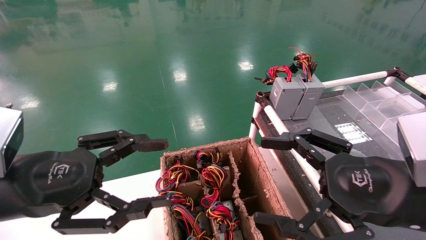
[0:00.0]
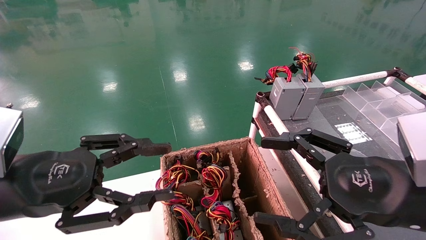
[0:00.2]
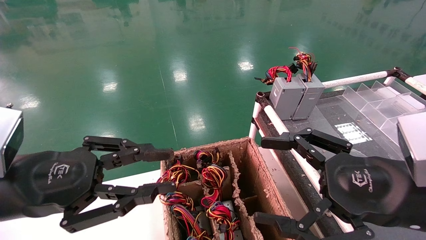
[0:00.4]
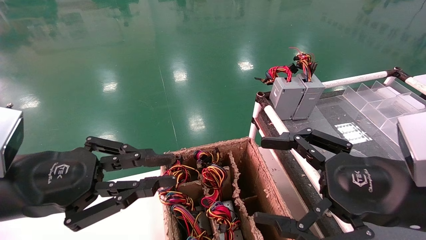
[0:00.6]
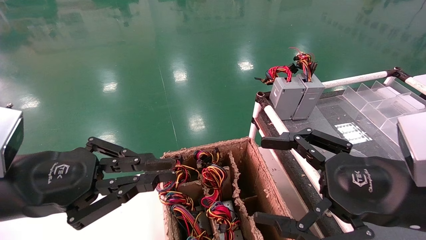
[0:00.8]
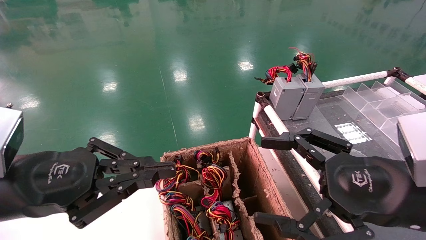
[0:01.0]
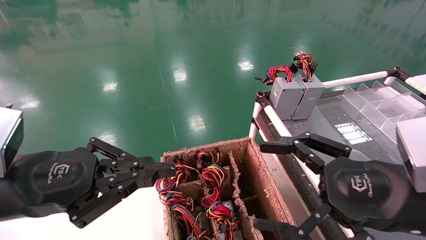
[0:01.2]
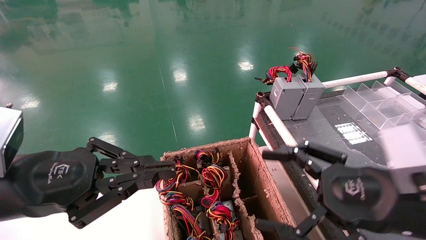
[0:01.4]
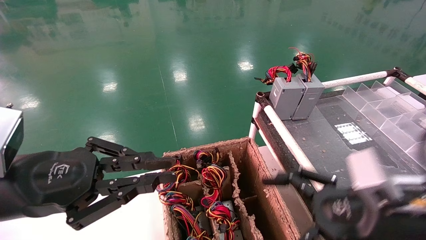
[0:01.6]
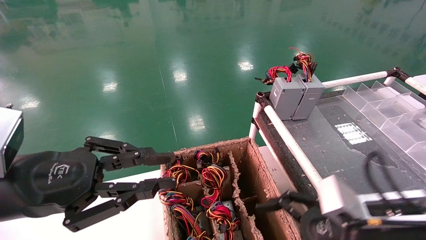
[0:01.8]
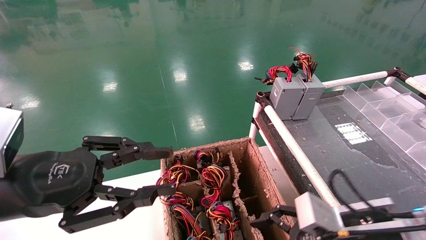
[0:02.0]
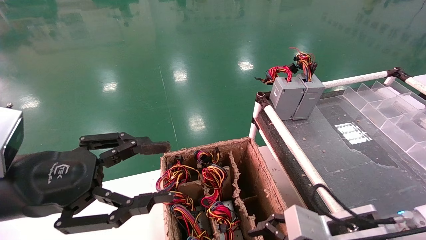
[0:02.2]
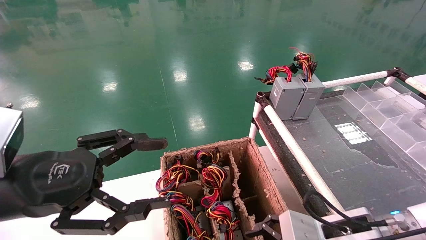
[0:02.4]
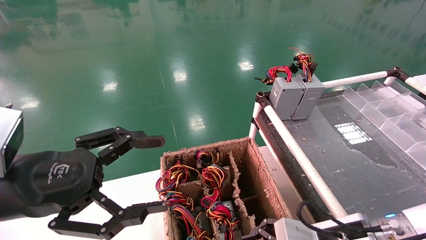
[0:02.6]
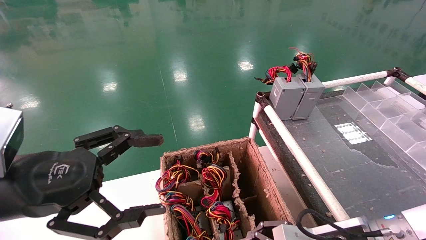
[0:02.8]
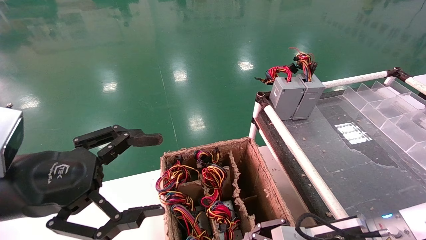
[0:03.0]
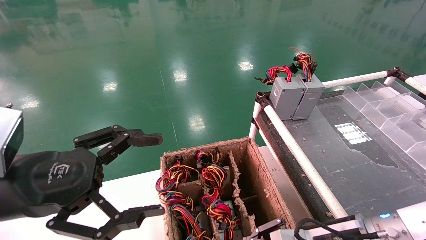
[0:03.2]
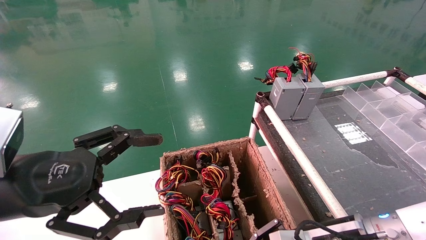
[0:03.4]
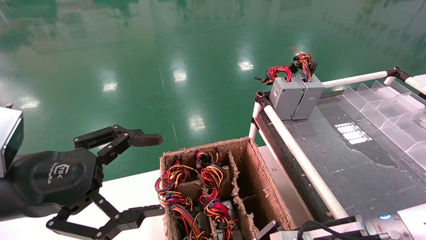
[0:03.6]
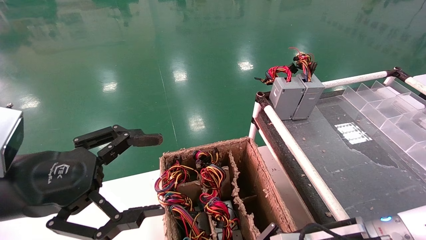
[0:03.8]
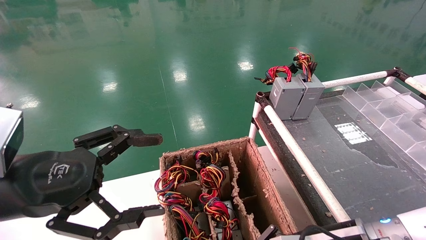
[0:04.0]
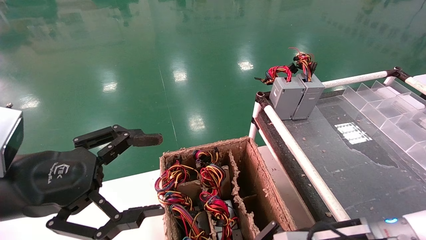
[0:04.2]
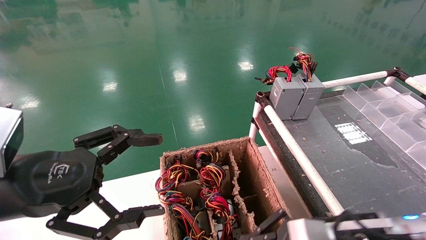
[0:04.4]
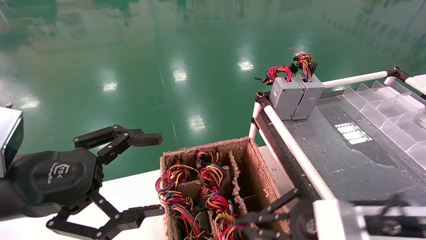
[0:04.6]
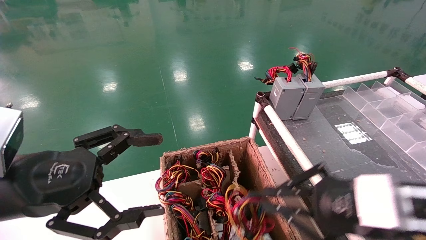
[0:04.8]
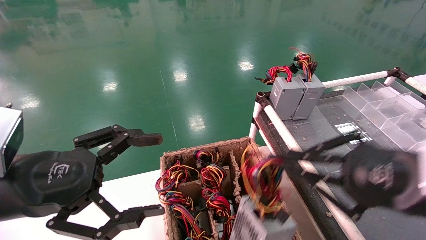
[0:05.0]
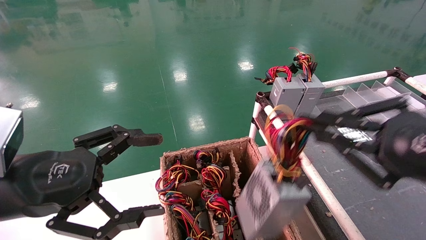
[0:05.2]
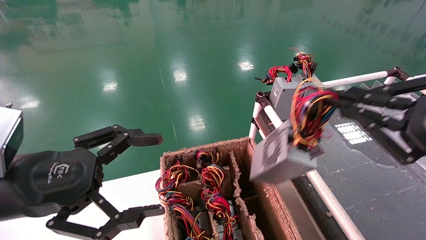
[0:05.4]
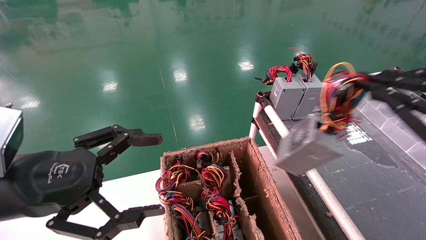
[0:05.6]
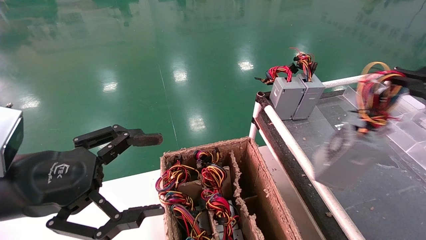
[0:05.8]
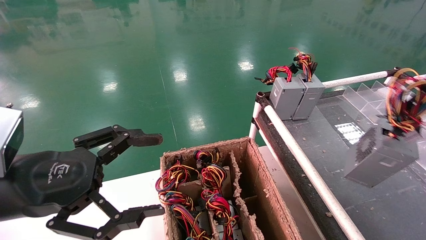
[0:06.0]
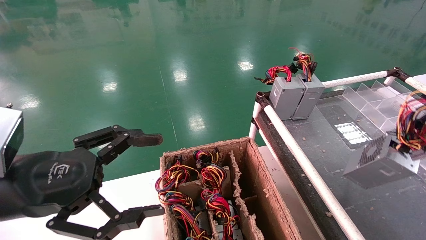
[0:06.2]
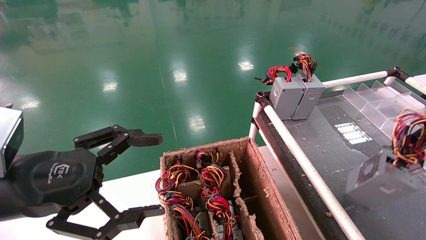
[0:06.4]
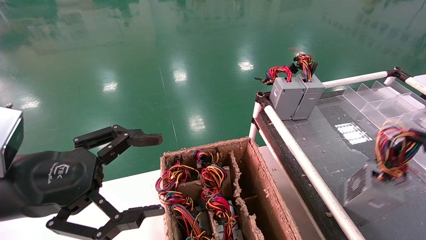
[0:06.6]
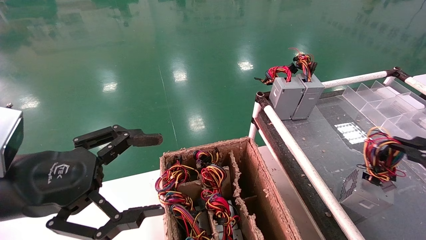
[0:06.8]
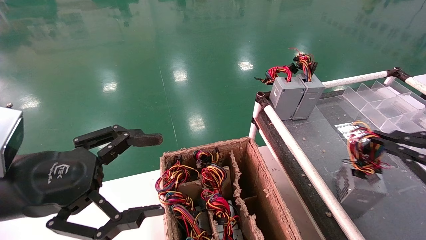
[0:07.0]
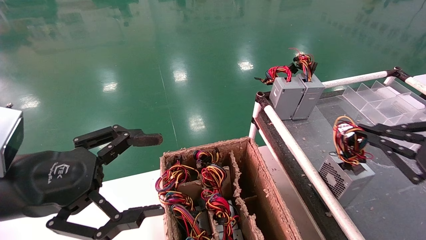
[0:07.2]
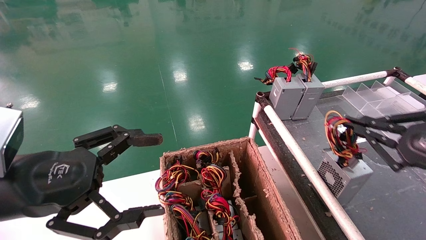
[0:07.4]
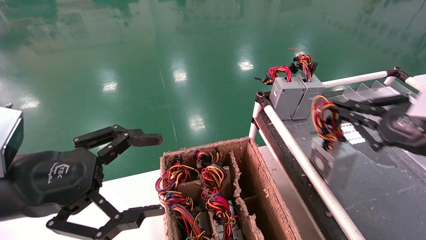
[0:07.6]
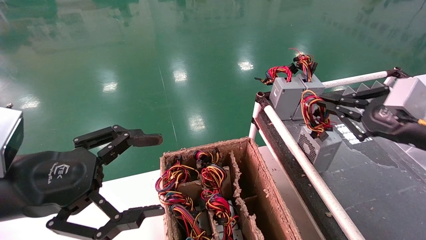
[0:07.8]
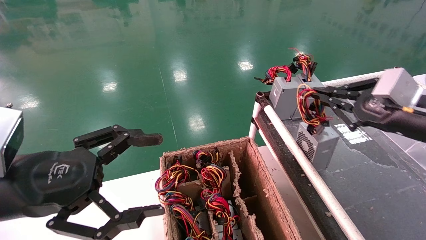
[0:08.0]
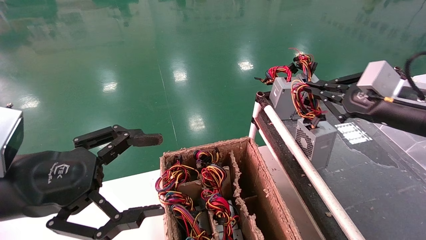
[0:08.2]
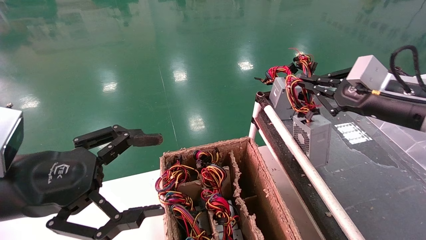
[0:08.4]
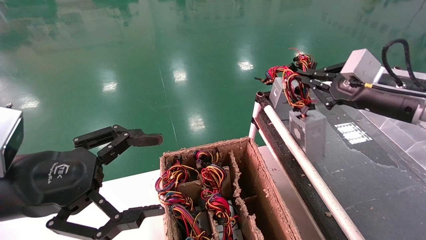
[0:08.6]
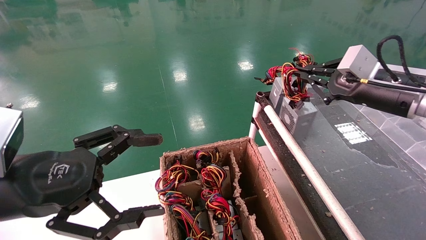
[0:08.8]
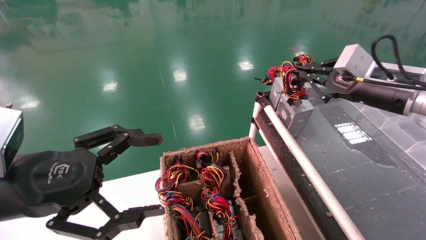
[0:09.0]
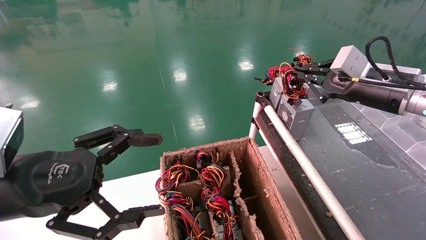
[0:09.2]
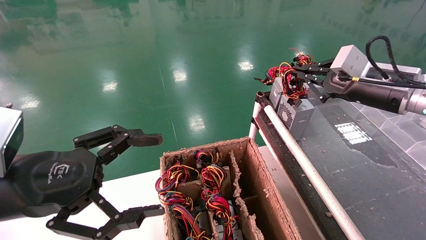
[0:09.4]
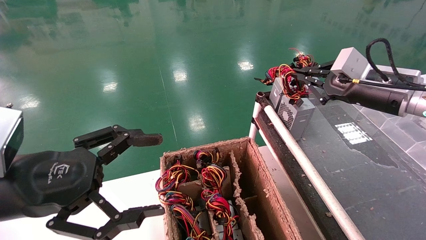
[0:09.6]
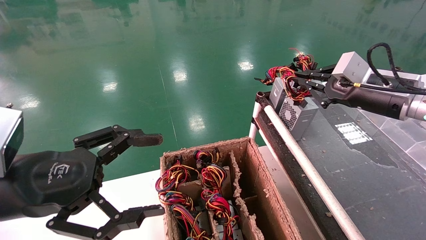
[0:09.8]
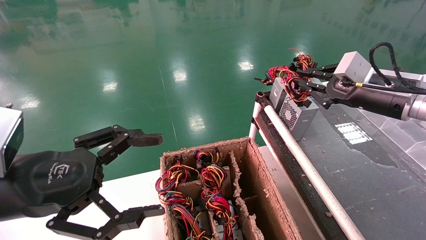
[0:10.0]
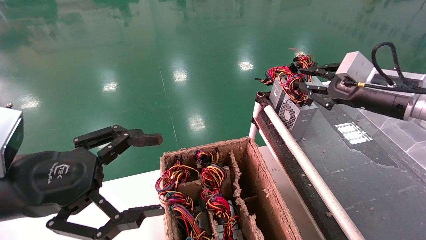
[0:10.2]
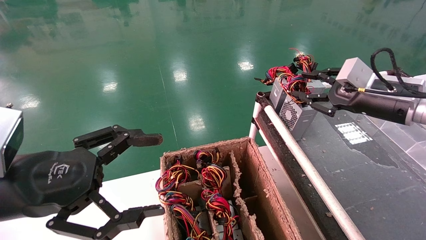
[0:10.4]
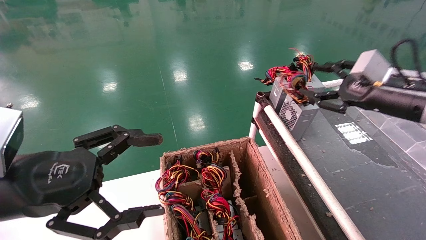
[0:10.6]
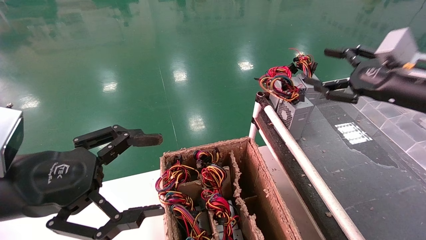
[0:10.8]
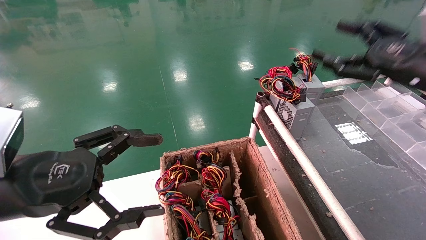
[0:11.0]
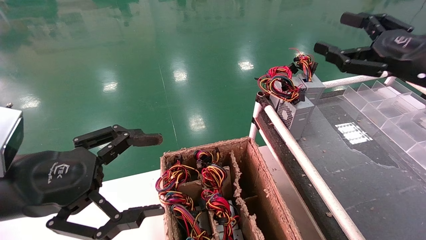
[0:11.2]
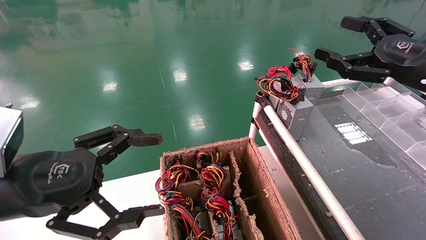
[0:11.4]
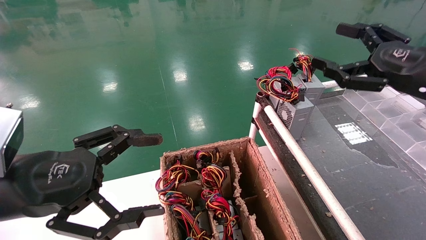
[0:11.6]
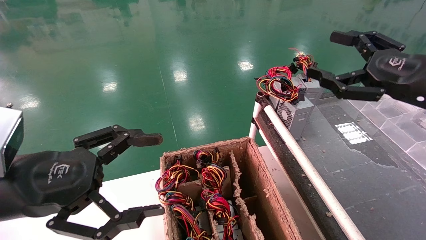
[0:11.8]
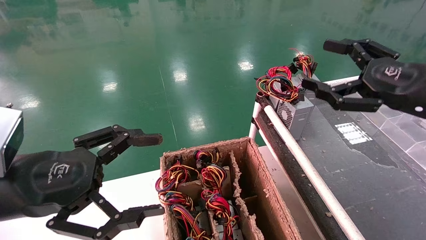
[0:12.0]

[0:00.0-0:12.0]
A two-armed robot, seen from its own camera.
Step, 0:01.0 to 0:03.8: Grab and lift the power supply from the large box.
Step, 0:04.0 to 0:10.0: Place the power supply on the operating table.
0:00.0 to 0:01.6: The right gripper ends up some 5 cm from where it was, while the left gripper closes its fingers.
0:01.6 to 0:03.0: The right gripper is displaced downward by roughly 5 cm, while the left gripper opens its fingers.
0:03.0 to 0:04.4: The right gripper closes its fingers.
0:04.4 to 0:06.0: The right gripper heads to the right and upward, covering approximately 25 cm.
0:06.0 to 0:07.6: The right gripper shifts some 10 cm forward and to the left.
0:07.6 to 0:09.0: The right gripper shifts approximately 15 cm forward and upward.
0:09.0 to 0:10.4: The grippers move only a little.
0:10.4 to 0:12.0: The right gripper heads backward, covering approximately 10 cm, and opens.
